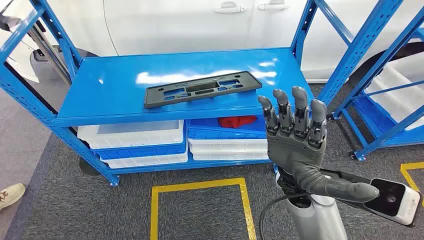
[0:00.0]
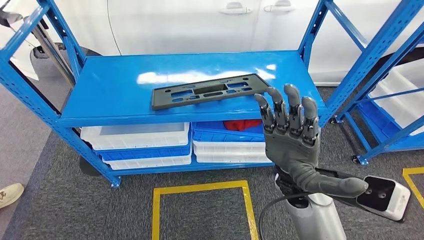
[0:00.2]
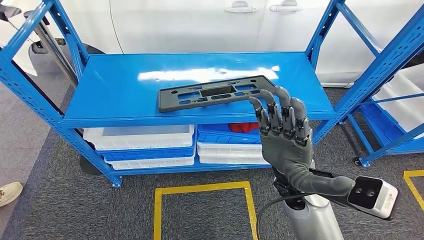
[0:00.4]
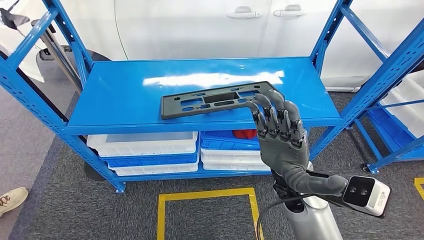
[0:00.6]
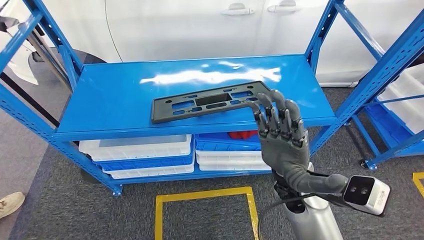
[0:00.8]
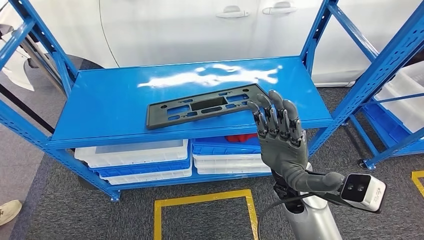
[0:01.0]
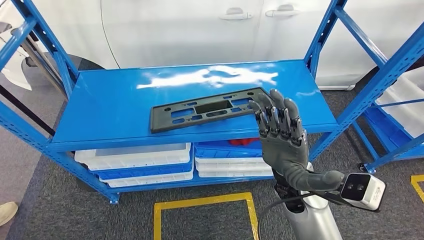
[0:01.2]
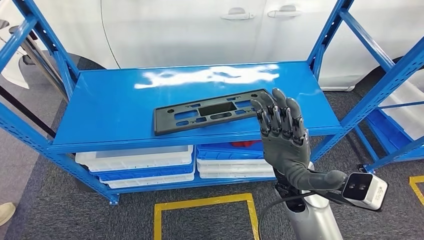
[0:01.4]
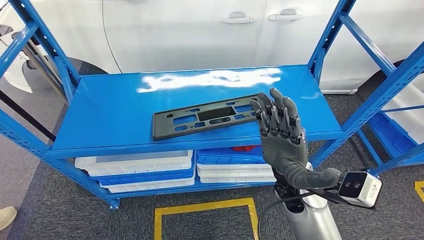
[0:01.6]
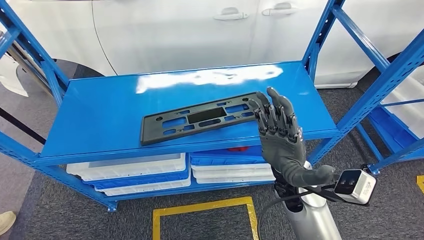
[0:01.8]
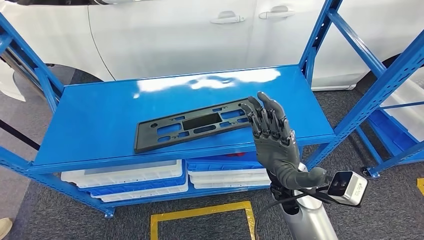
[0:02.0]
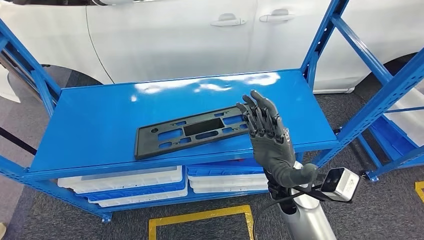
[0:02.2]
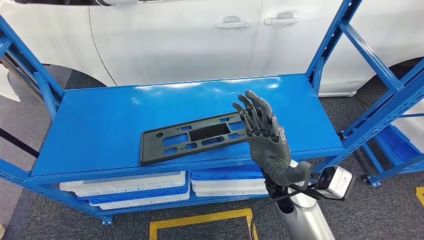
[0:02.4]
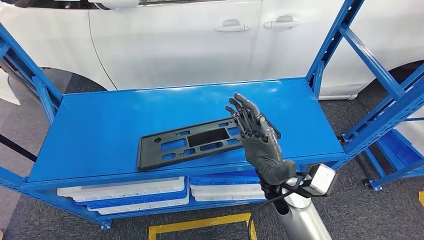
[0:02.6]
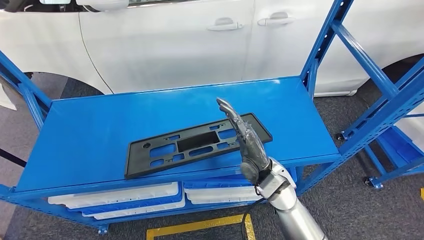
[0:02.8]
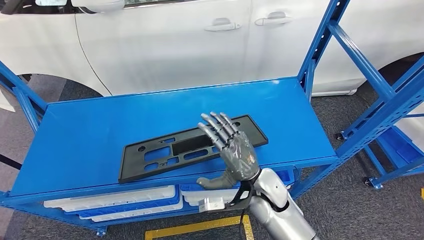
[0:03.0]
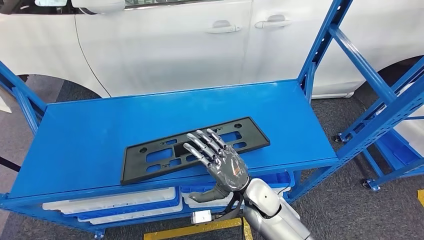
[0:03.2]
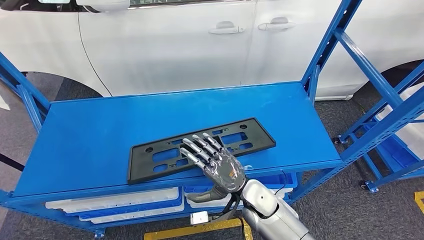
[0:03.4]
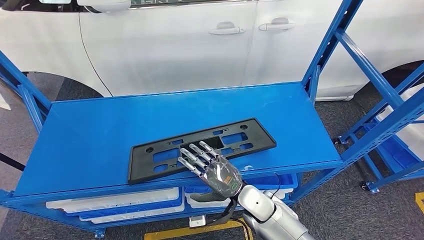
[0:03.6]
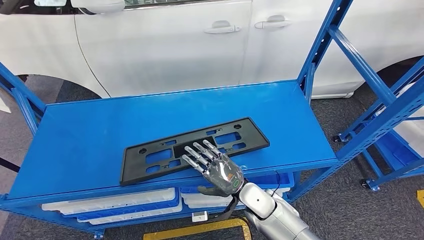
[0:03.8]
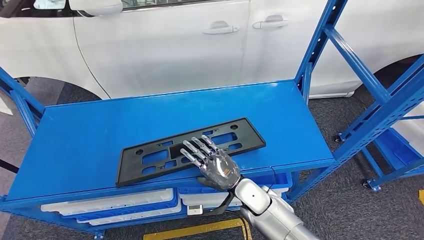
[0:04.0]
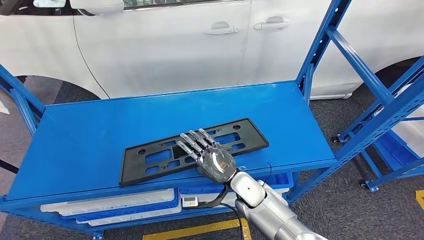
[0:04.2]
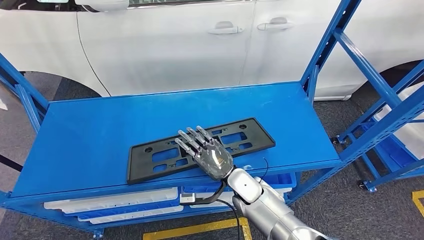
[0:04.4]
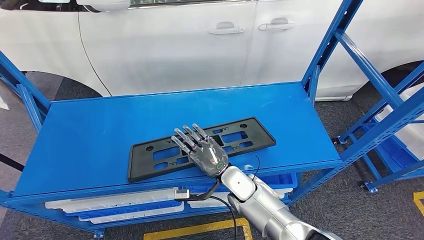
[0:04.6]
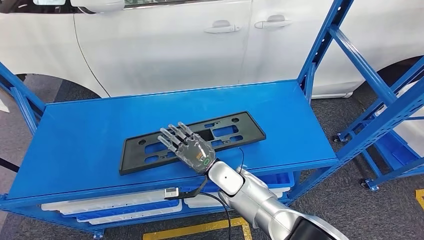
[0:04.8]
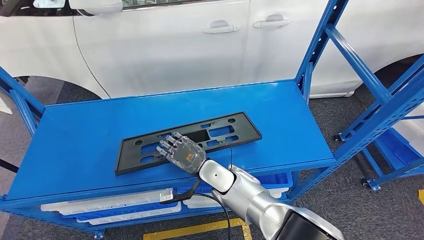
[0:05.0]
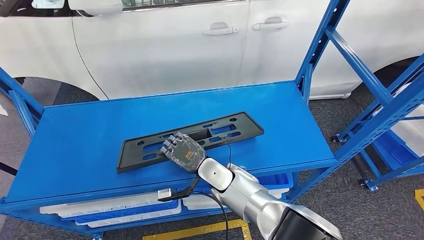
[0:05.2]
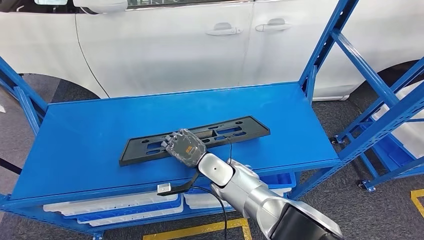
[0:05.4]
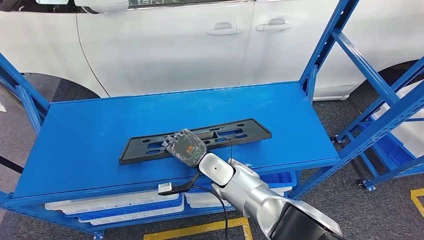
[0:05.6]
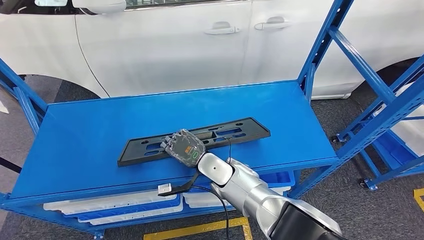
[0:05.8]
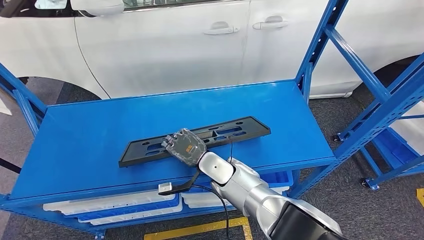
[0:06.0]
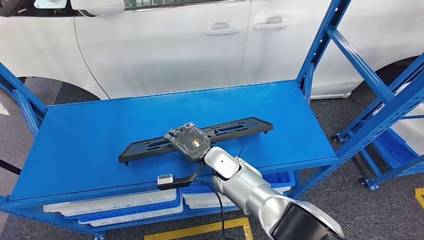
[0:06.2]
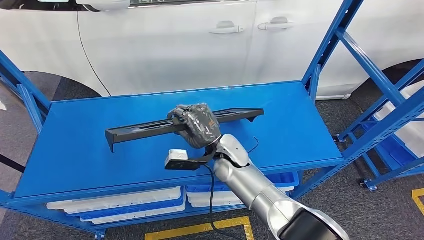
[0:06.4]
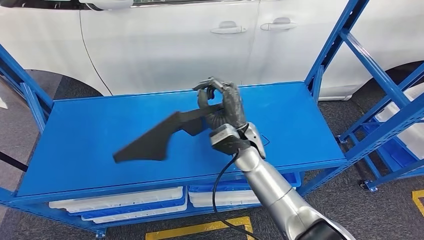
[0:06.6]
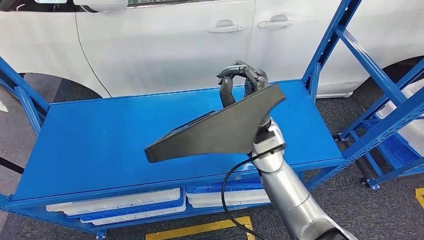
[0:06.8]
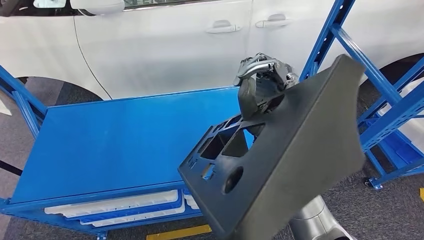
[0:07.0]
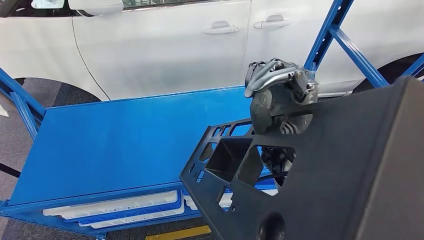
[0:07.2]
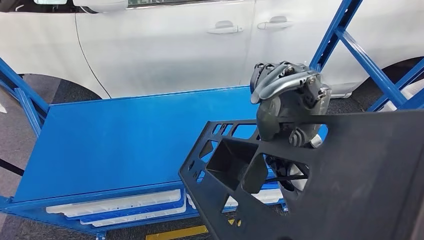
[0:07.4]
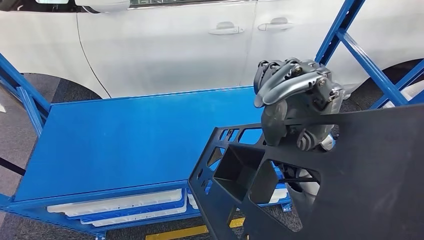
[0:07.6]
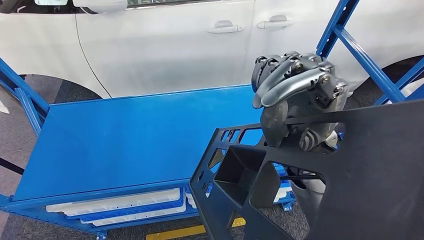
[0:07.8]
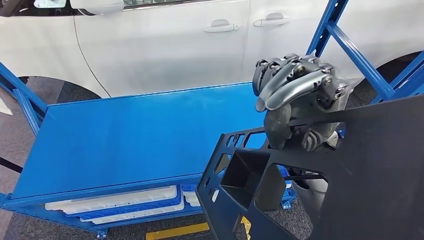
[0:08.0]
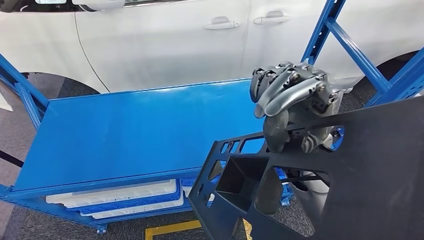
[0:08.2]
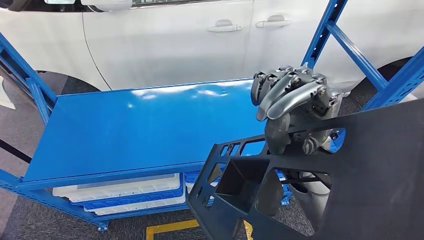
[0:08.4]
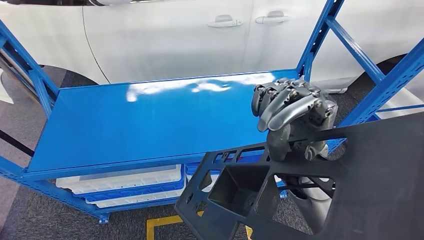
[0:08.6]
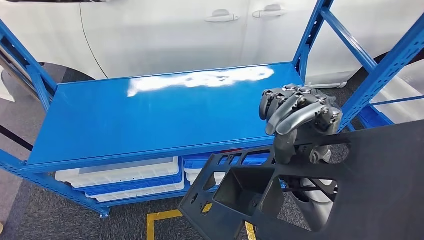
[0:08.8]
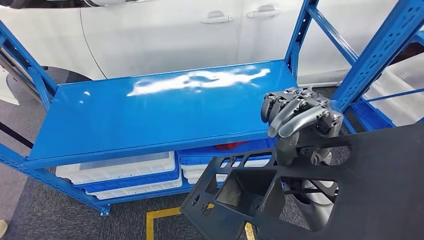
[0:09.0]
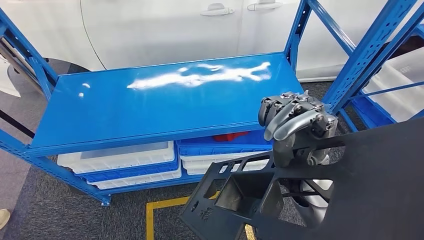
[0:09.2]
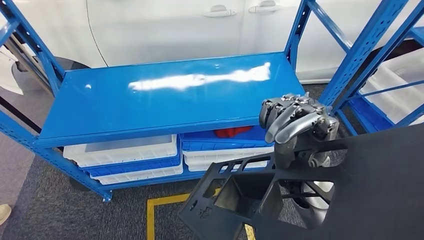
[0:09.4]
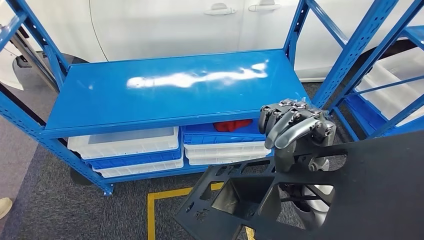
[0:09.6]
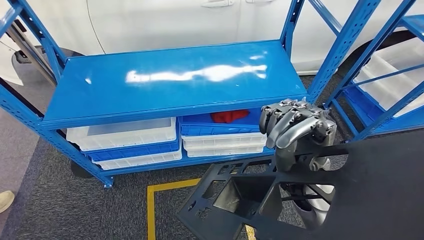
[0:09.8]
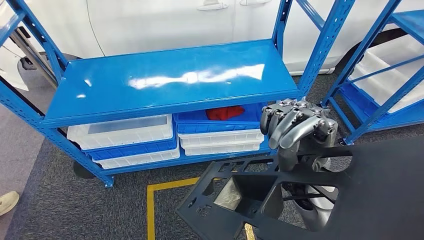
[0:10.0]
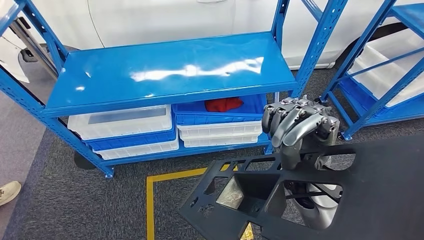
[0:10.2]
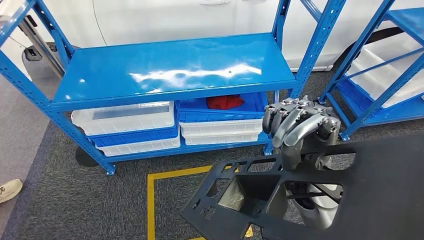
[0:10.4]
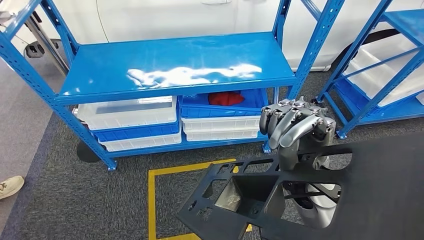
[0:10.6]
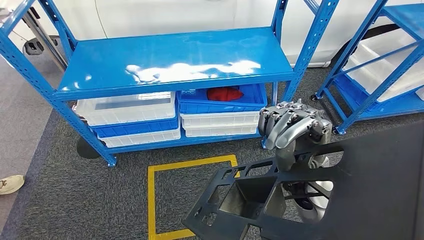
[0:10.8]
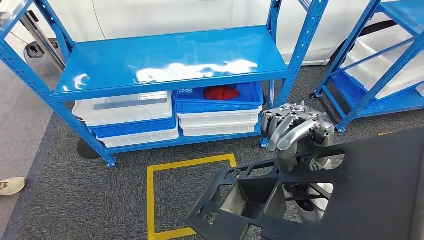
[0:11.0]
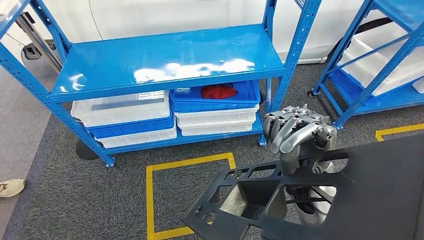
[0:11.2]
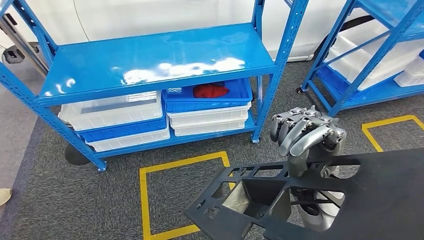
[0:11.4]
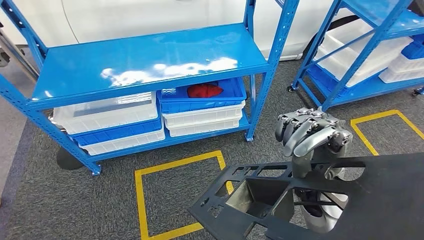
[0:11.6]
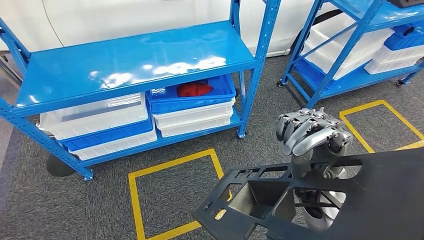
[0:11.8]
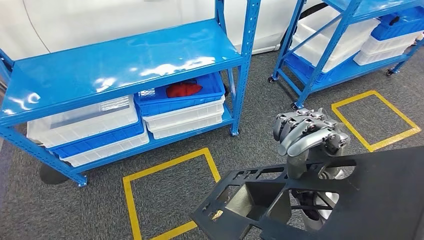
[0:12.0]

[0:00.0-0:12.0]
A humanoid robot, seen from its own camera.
Step, 0:00.0 to 0:06.6: Pick up the large material from the shelf.

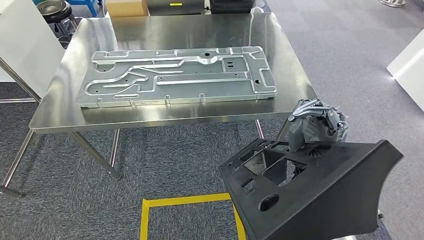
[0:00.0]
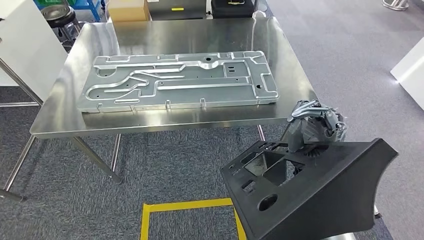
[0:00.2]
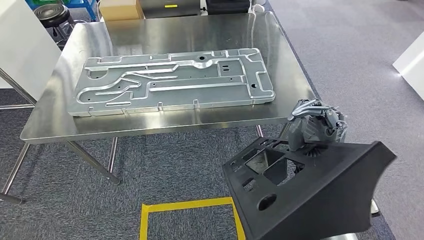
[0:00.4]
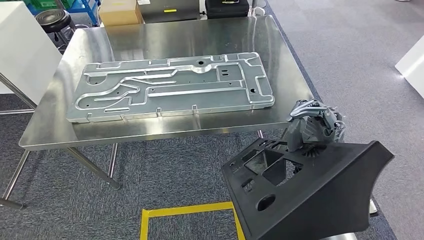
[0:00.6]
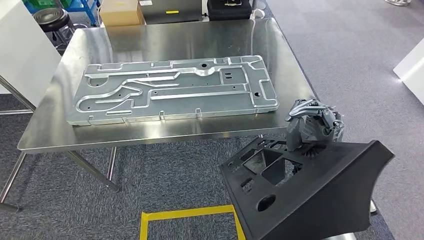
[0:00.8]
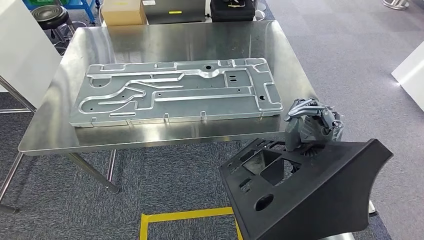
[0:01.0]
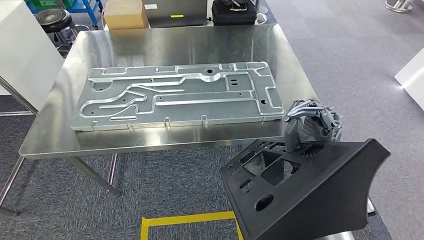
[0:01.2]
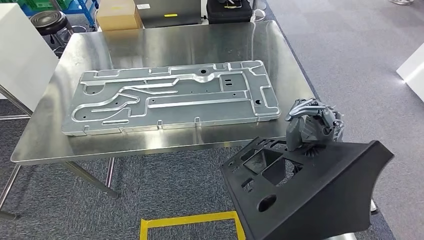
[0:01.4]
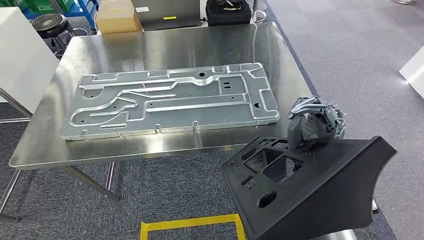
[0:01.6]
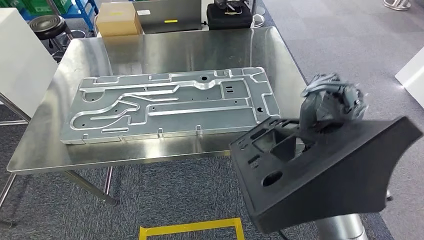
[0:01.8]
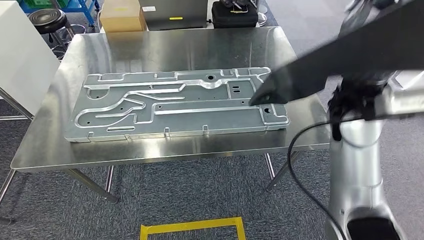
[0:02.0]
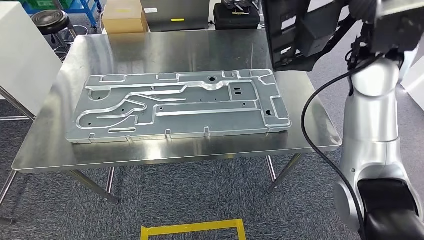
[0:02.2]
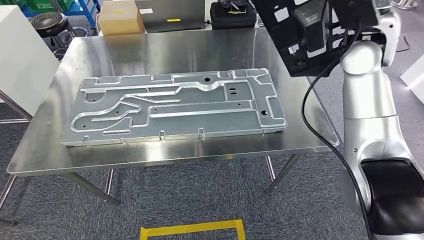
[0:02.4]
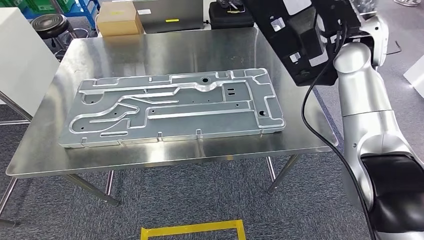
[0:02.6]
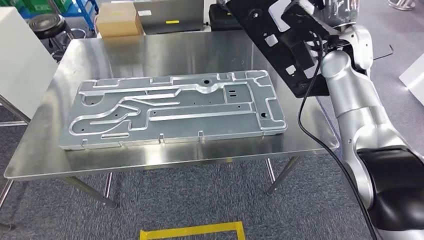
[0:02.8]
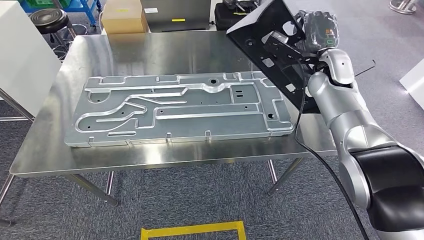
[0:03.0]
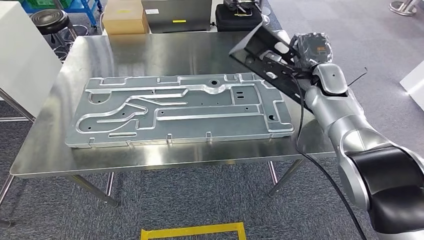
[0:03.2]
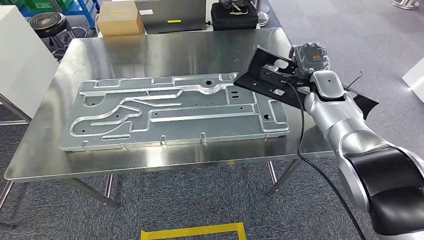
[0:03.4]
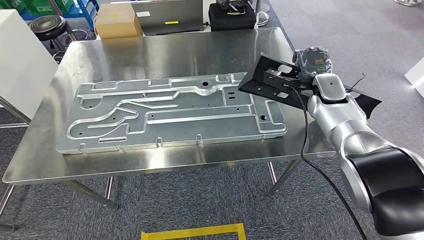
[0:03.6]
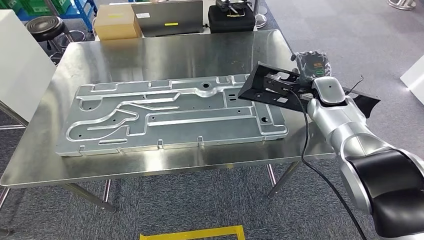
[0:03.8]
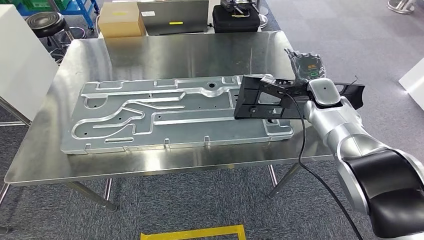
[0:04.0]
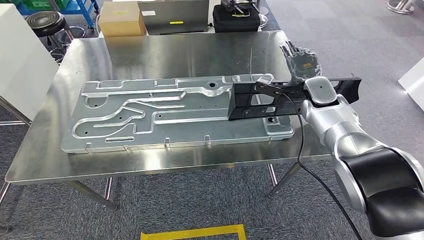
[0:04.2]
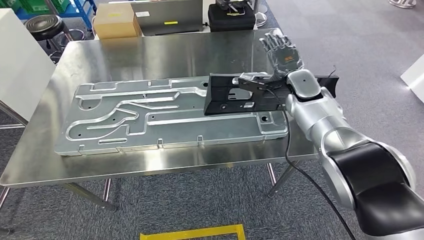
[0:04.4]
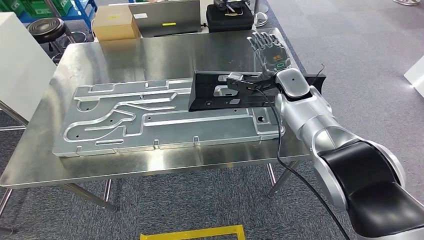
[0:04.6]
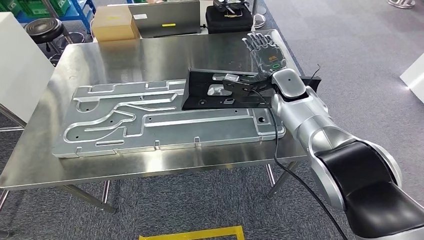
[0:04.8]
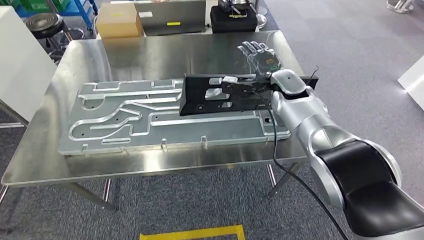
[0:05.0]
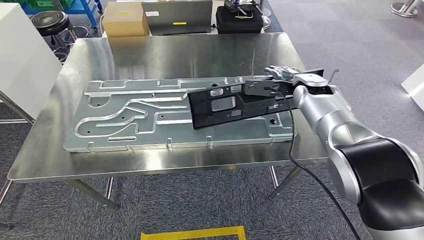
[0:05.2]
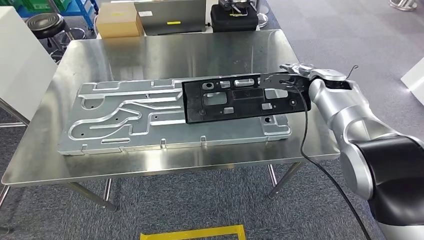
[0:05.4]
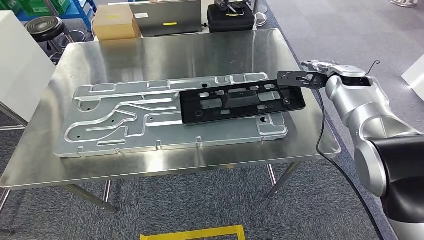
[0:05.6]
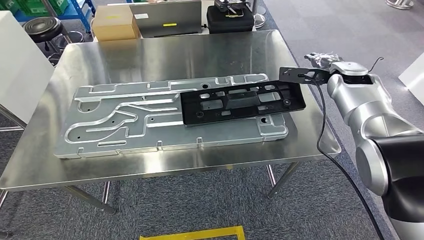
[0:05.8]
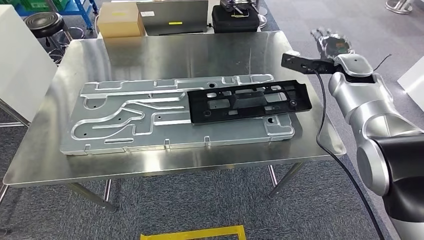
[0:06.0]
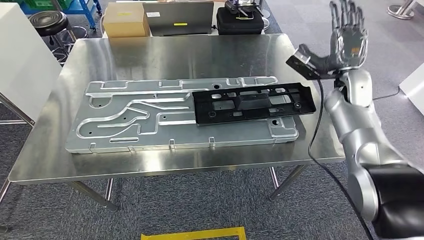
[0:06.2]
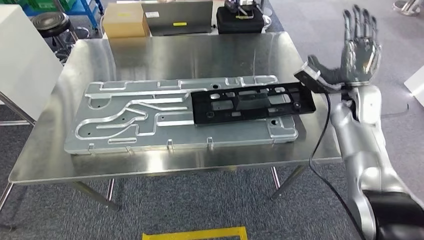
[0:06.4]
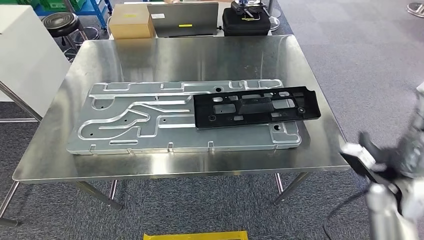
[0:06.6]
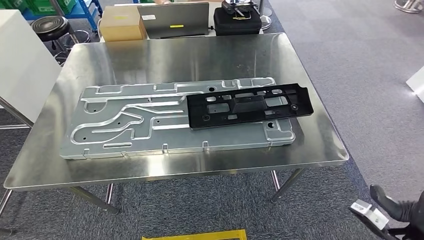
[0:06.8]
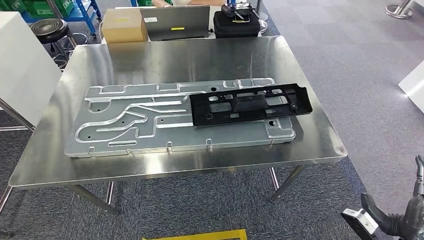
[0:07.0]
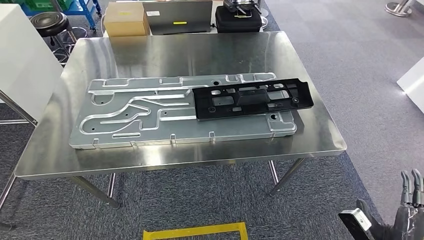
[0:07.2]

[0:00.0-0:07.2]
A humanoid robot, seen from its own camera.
Step, 0:00.0 to 0:02.0: Move the large material to the workbench.
Step, 0:04.6 to 0:07.2: Insert the large material into the corresponding slot on the workbench.
